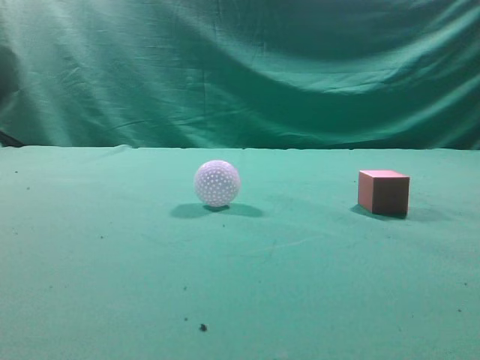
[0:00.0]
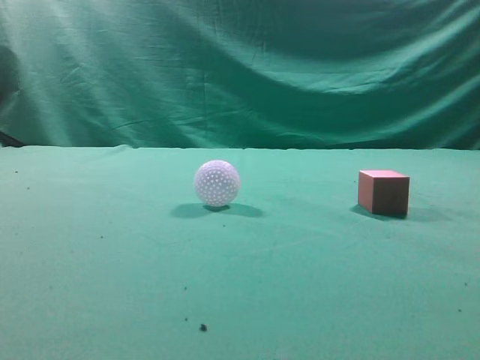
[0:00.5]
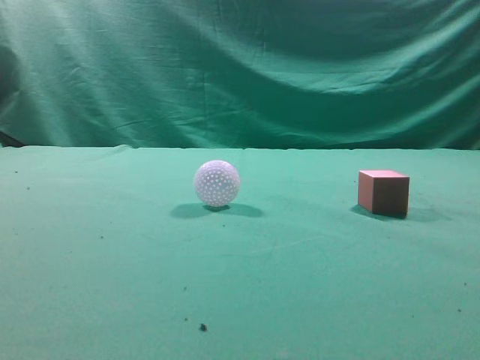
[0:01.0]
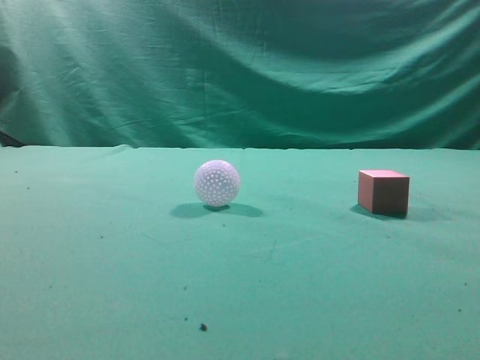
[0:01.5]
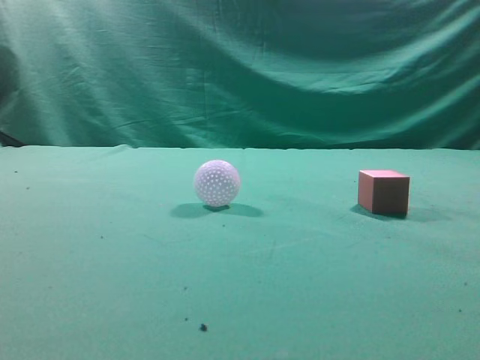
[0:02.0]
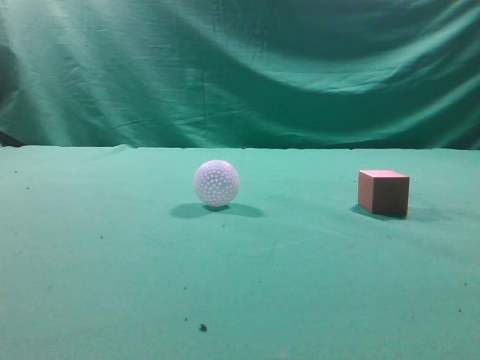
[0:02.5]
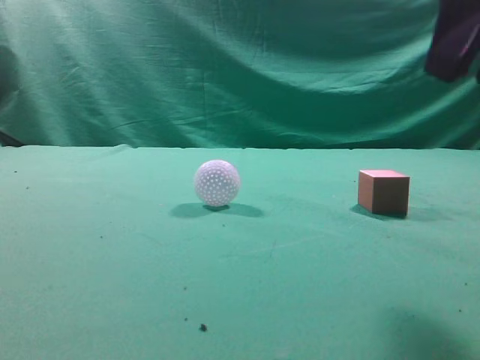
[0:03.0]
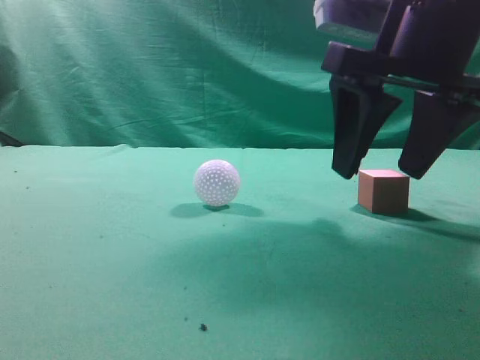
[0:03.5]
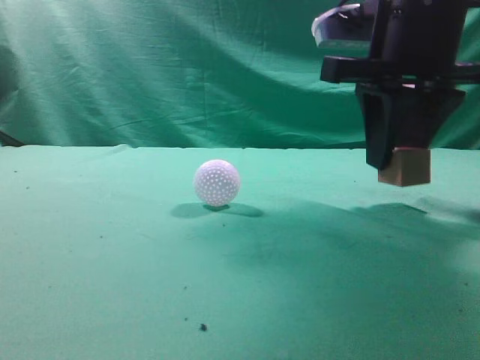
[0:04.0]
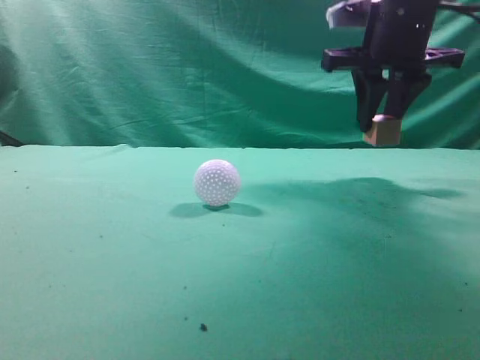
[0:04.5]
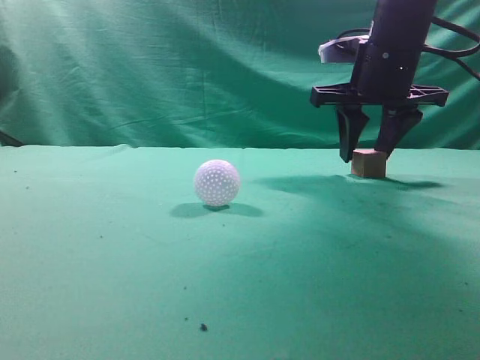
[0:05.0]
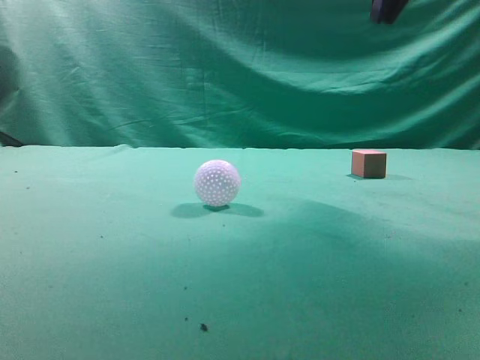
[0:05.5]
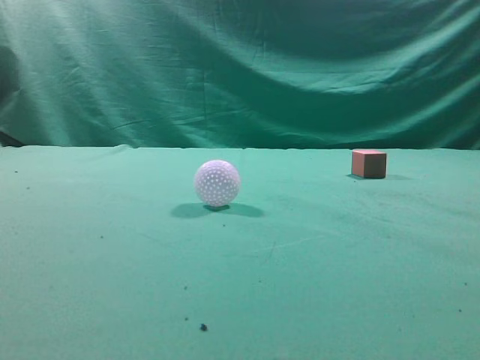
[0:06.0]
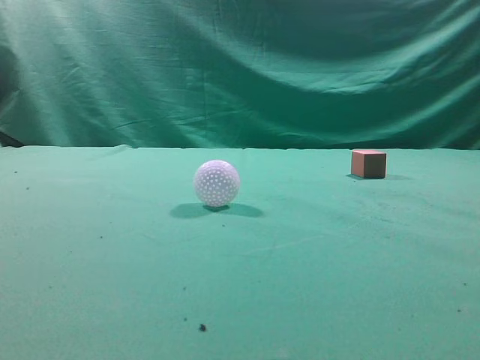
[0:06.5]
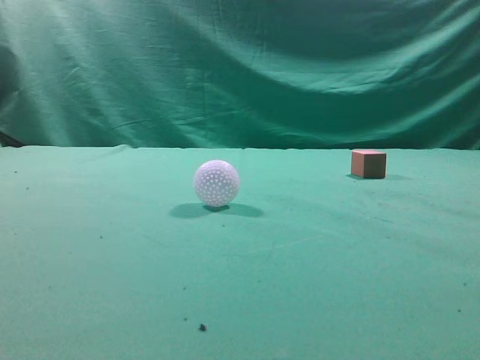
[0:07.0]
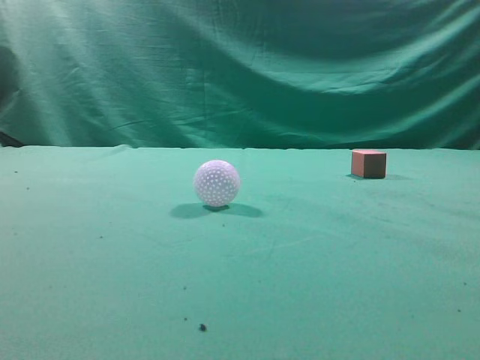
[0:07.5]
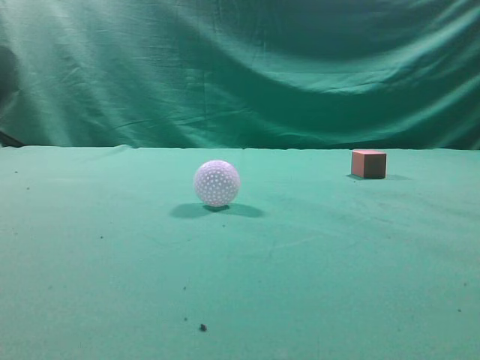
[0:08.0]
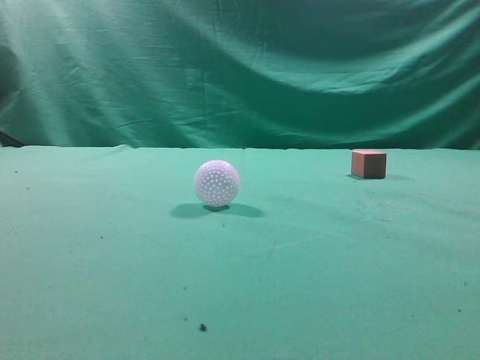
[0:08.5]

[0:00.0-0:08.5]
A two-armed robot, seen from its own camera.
Task of the whole recording: pick up the cube block and place it in another position on the table.
Step, 0:00.0 to 0:03.5: Pick up the small cube.
Step, 0:04.0 to 0:05.0: Place the small cube on the ahead of the table.
0:02.0 to 0:04.0: The right gripper heads forward and to the left, covering about 25 cm, and opens up.
0:04.0 to 0:06.5: The right gripper shifts about 35 cm backward, upward and to the right, and closes up.
